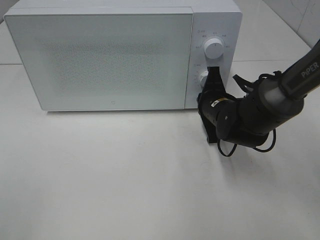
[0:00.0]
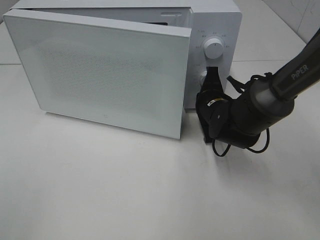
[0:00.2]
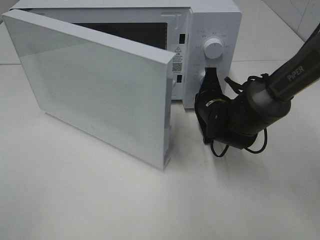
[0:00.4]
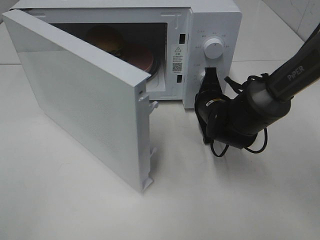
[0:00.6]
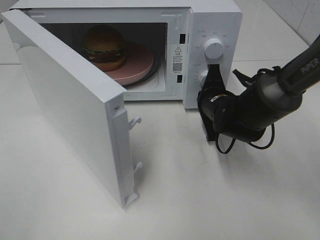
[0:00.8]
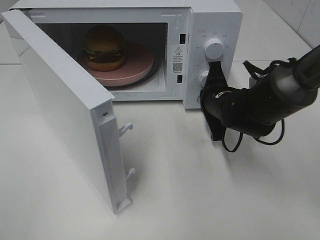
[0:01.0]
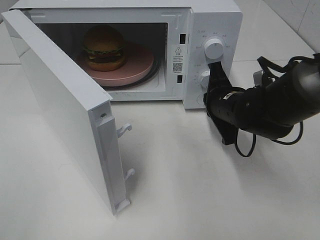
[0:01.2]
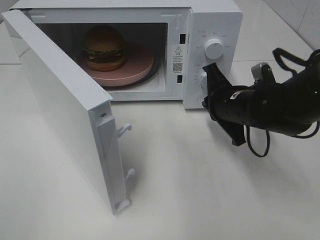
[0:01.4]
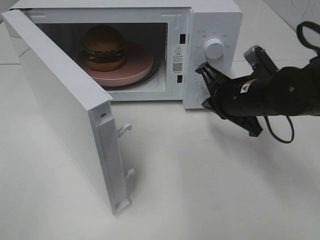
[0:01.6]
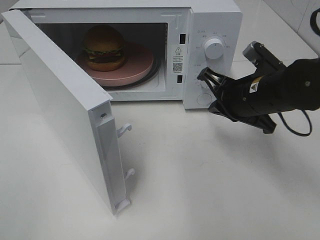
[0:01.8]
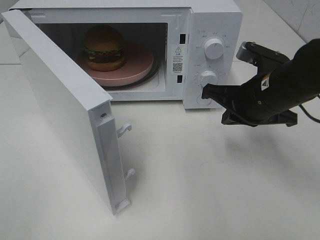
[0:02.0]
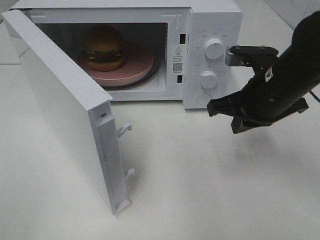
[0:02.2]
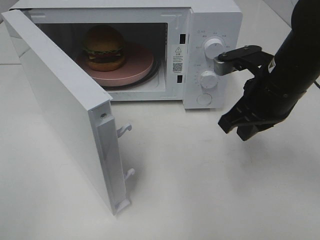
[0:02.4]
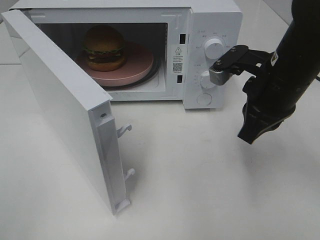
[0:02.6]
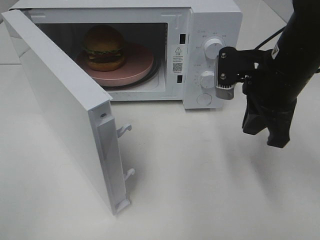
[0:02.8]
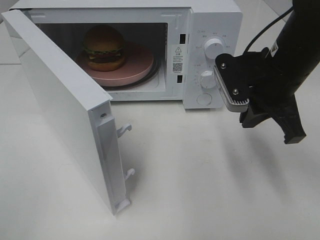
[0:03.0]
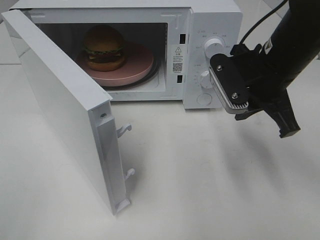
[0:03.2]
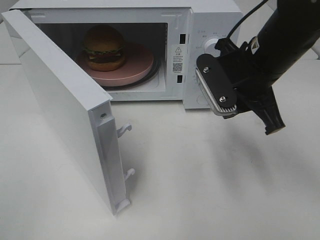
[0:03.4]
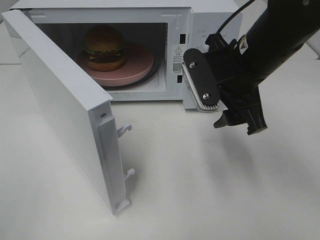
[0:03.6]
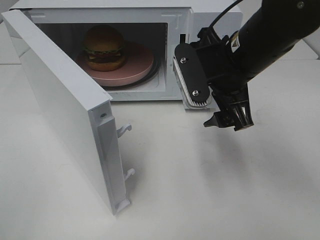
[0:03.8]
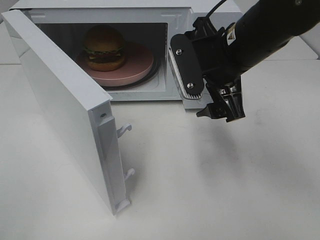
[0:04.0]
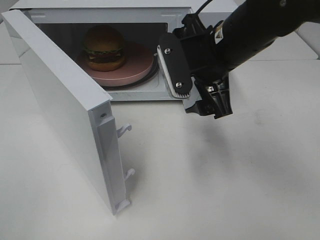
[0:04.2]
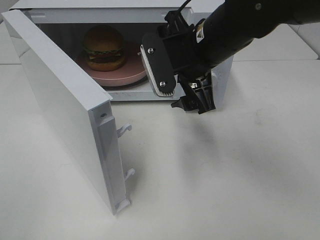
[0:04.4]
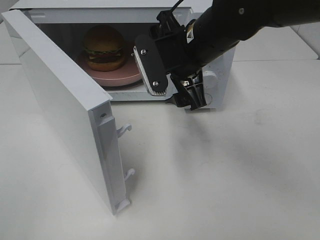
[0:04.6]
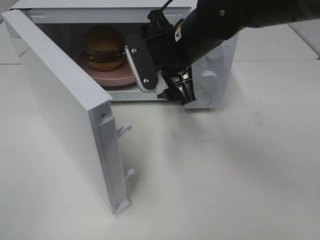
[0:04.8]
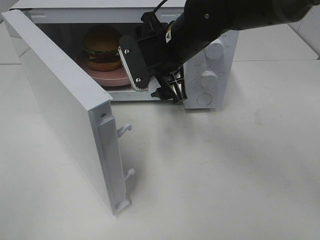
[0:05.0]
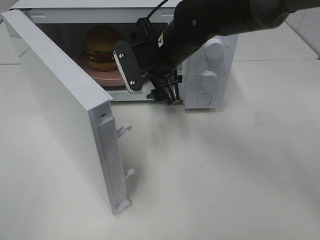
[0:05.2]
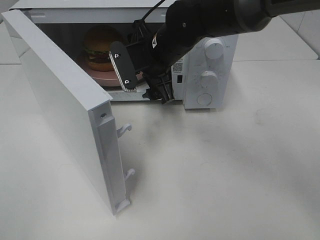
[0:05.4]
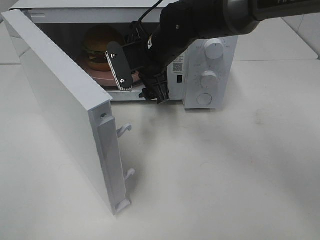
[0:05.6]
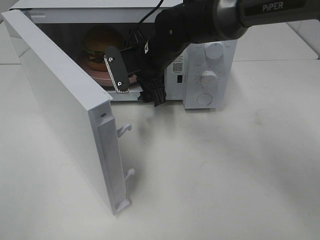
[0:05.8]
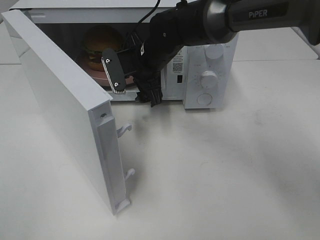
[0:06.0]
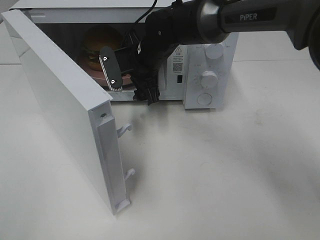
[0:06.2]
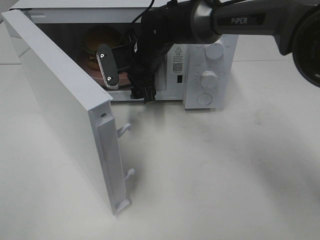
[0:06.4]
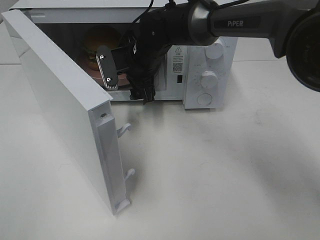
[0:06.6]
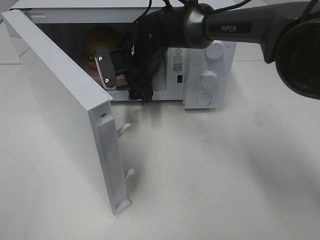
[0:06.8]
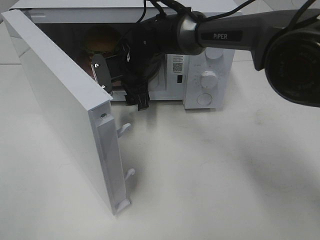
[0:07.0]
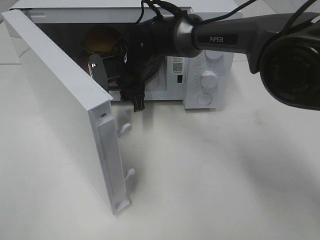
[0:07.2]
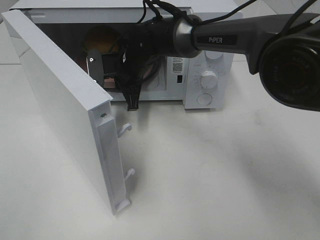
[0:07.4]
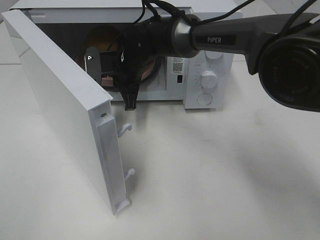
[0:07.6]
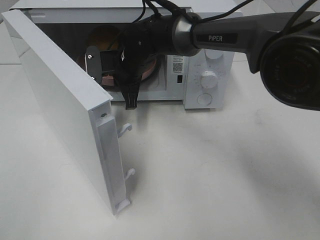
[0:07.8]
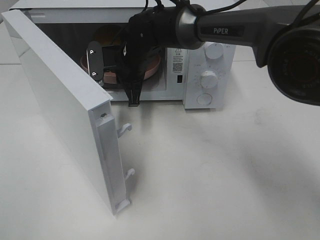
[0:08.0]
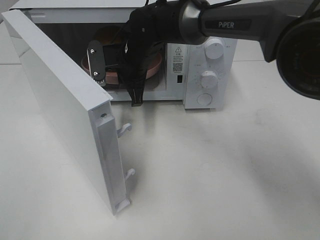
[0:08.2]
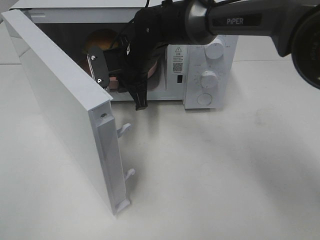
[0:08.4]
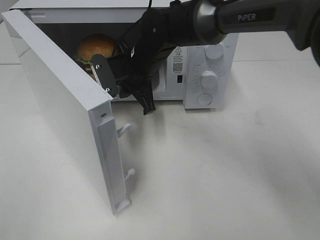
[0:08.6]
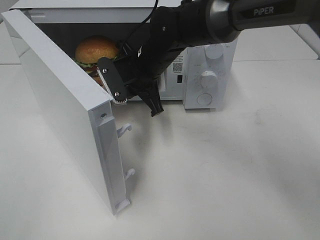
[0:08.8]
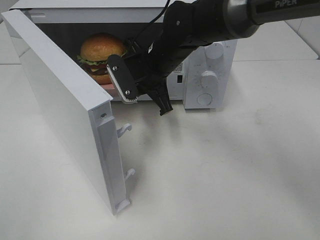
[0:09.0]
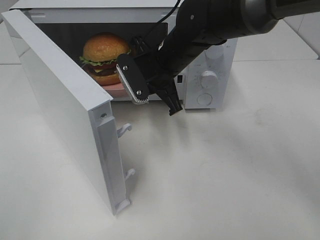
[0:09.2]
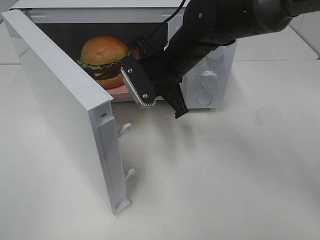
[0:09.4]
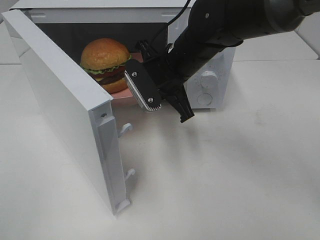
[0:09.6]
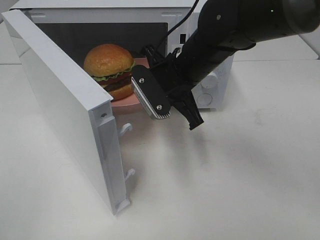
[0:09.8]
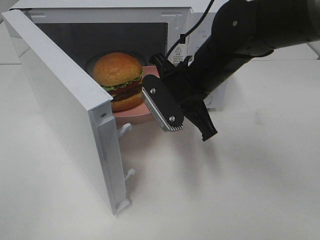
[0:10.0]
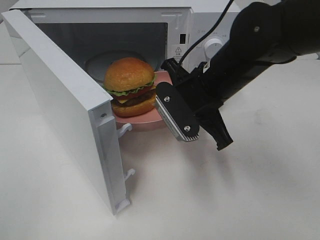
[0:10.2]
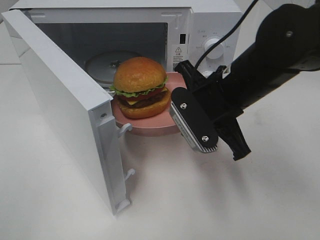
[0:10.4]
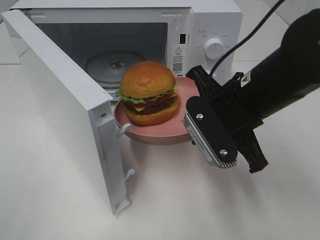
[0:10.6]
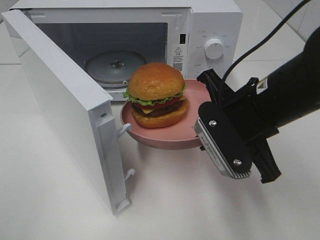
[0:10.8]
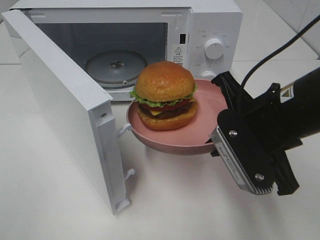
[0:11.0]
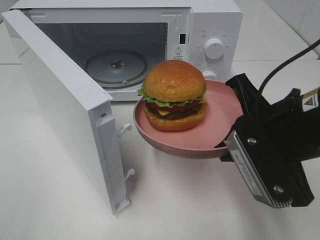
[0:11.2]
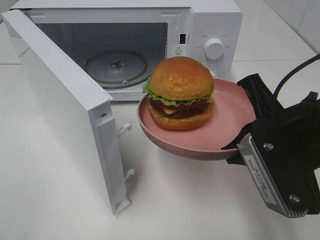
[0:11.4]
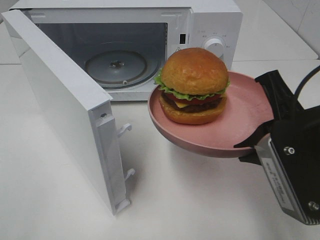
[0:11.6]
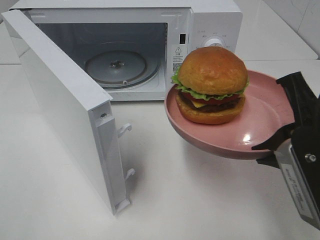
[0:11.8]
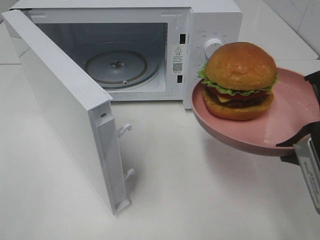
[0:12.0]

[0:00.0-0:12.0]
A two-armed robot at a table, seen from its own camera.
Task of the whole recording: Heat the burger.
Step, 0:01.8 to 0:07.8: Right hand: grab the plate with the hamburger.
0:00.0 to 0:01.6: The right gripper shifts approximately 5 cm upward.
0:01.6 to 0:03.0: The right gripper goes roughly 5 cm upward.
0:03.0 to 0:04.4: The right gripper travels to the left by some 10 cm, and opens up.
0:04.4 to 0:06.0: The right gripper is displaced forward, downward and to the left by some 15 cm.
0:06.0 to 0:07.6: The right gripper shifts by roughly 5 cm, and closes up.
0:07.6 to 0:09.0: The right gripper shifts about 5 cm to the right.
0:09.0 to 0:10.4: The right gripper travels backward and to the right by about 15 cm.
0:10.4 to 0:12.0: The right gripper shifts approximately 15 cm backward and to the right.

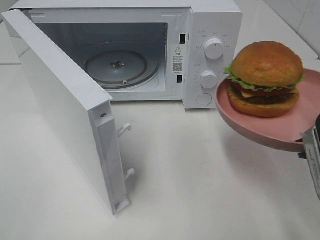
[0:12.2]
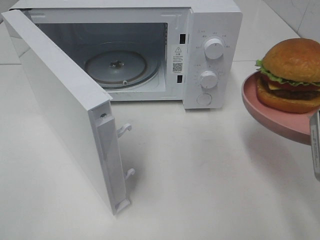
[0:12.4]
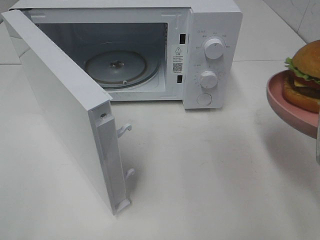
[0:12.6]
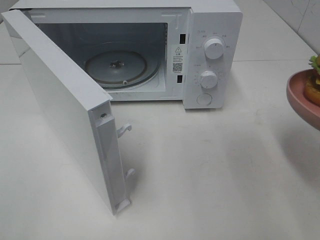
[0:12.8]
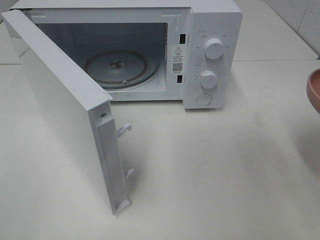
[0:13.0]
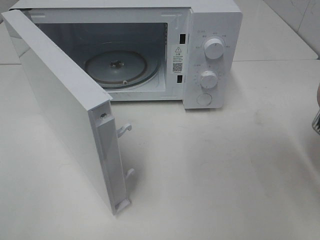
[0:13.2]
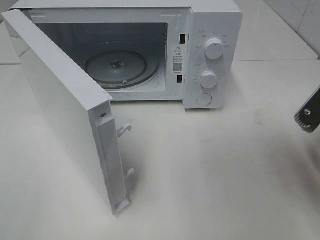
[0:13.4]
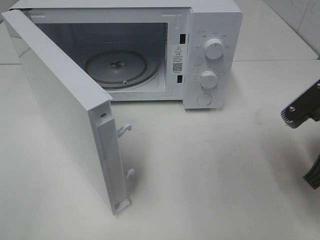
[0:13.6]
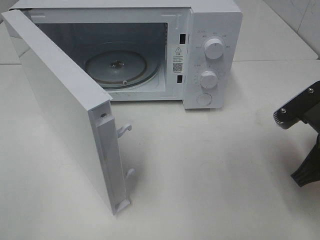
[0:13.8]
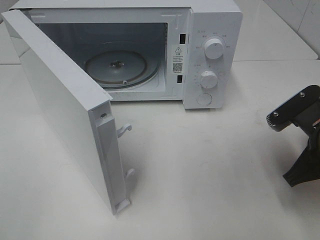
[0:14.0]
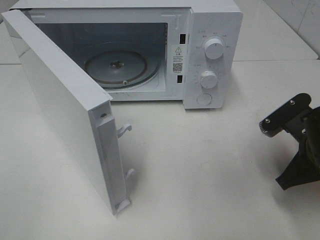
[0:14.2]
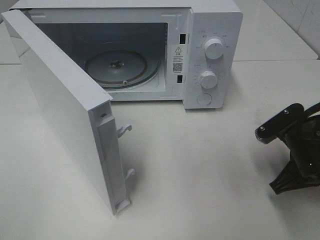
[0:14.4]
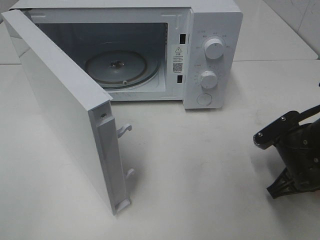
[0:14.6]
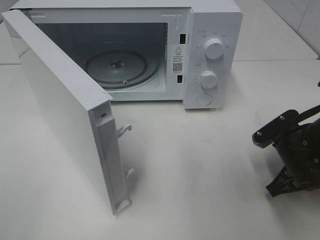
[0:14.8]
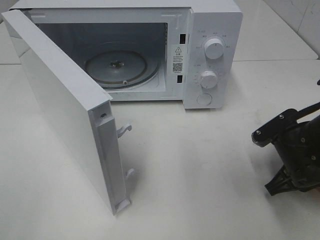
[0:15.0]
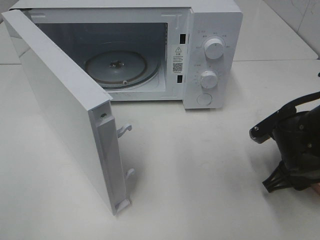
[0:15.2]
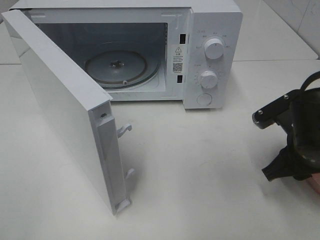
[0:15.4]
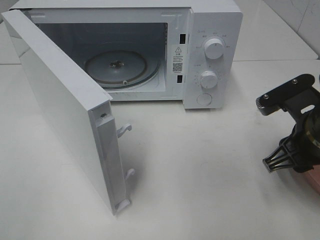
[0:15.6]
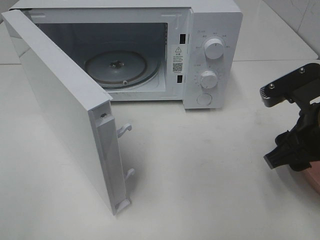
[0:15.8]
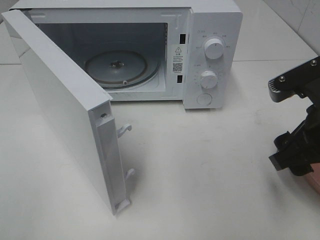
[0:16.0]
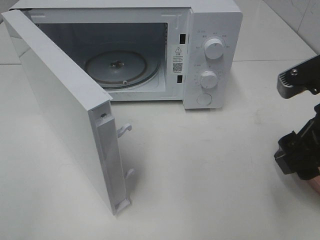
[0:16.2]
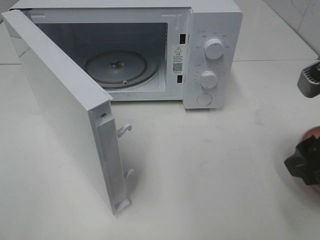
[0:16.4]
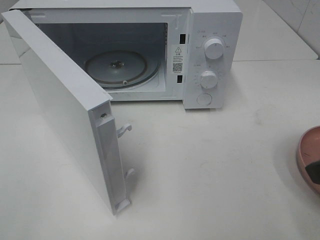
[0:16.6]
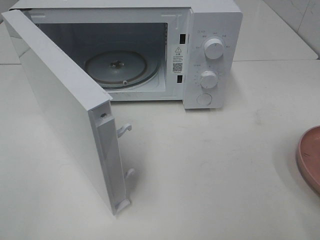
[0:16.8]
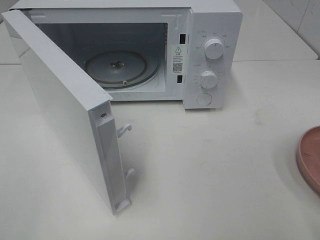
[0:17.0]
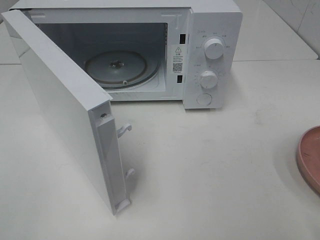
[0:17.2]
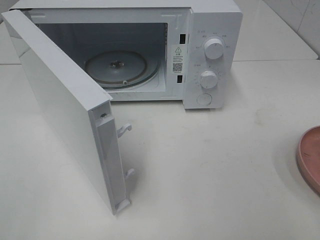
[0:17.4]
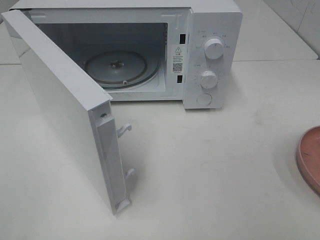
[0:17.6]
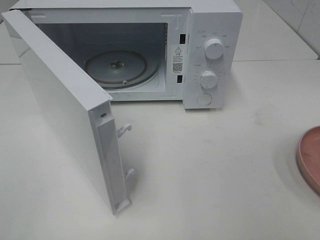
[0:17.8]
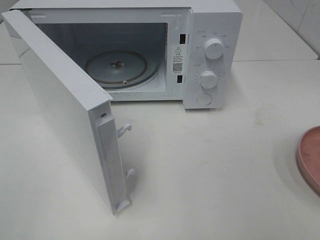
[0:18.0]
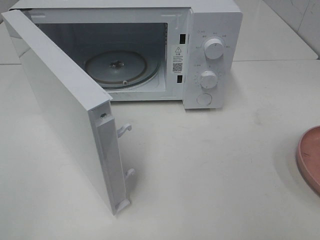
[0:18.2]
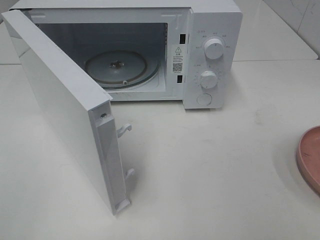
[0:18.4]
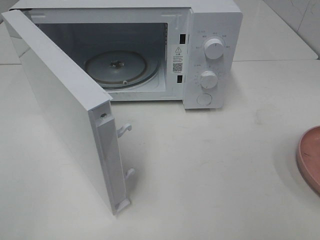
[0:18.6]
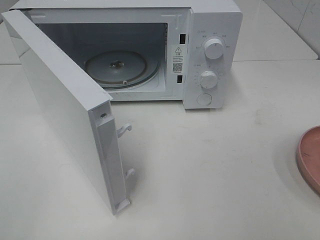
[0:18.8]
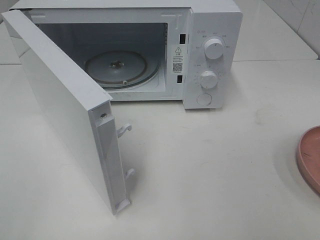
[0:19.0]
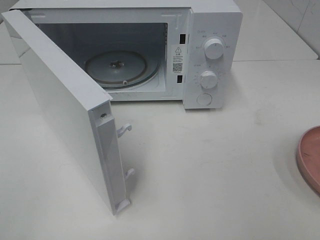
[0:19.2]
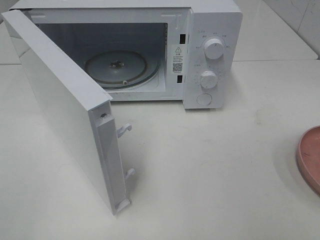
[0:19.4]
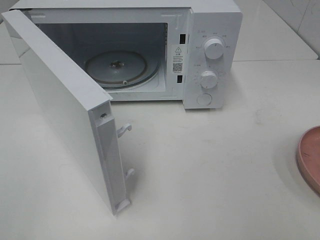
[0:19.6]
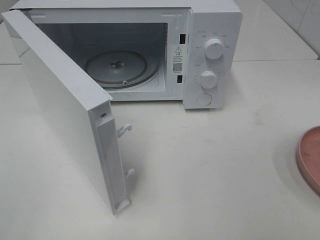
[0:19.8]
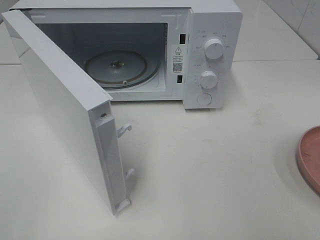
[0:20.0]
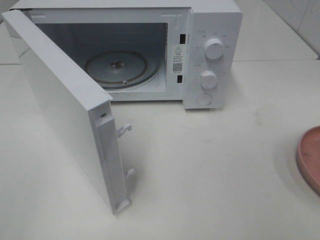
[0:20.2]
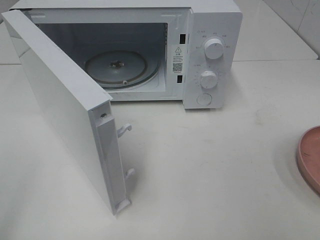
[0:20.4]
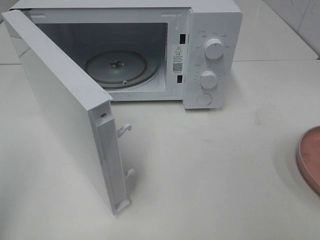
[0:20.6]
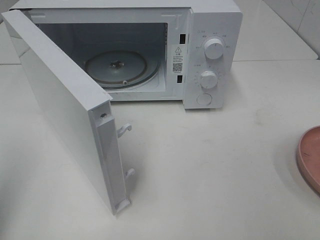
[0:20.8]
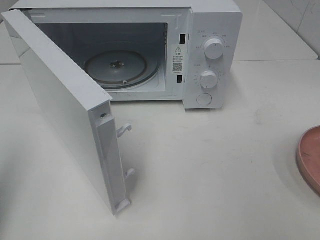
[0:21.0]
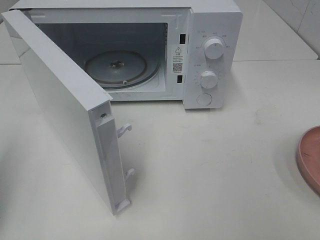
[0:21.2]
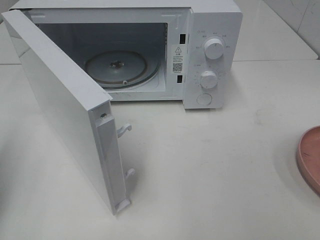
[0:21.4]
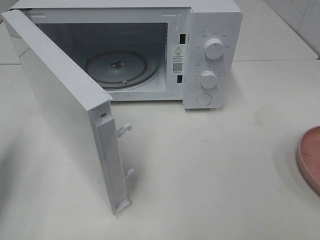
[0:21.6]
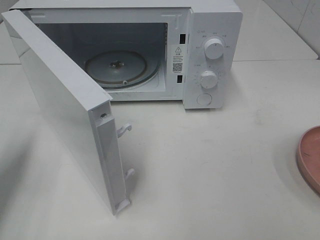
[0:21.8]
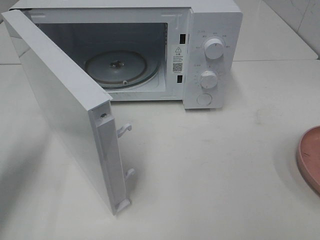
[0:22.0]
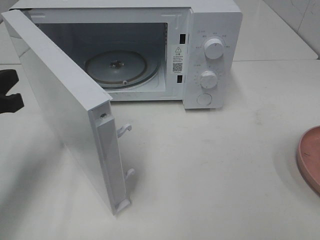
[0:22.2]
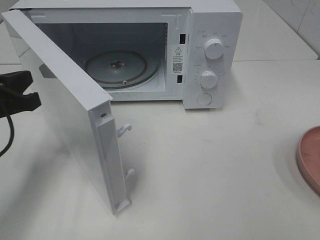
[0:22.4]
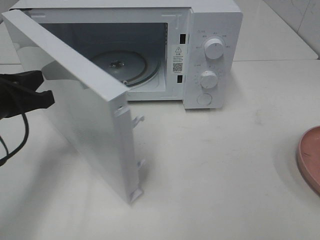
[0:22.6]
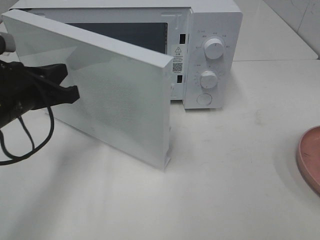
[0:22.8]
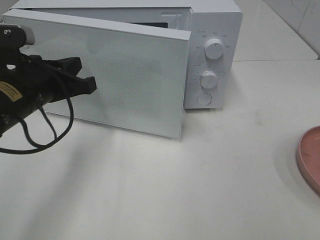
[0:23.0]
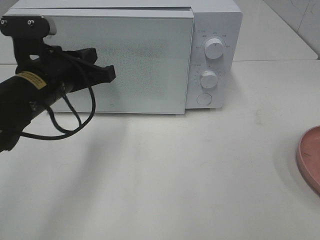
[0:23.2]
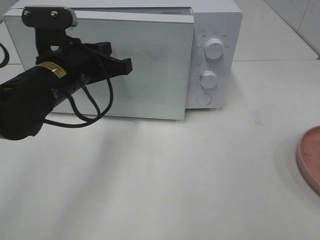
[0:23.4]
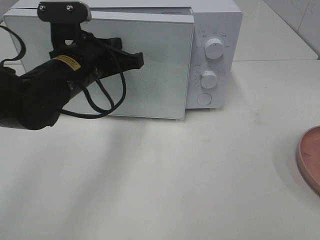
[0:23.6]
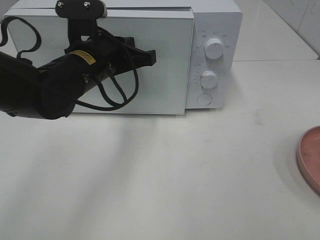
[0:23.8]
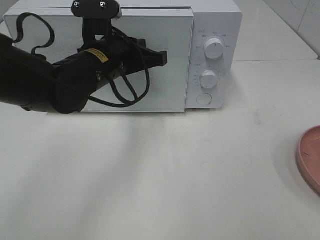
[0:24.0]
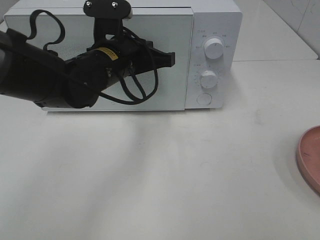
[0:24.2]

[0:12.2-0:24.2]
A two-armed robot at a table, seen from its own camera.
Task of the whole recording: Heat the burger.
Step, 0:12.2 to 0:15.6: Right hand: place the plate on the table.
0:12.2 to 0:13.8: The right gripper travels downward and forward by approximately 10 cm.
0:13.8 to 0:15.2: The right gripper travels downward by roughly 5 cm, and opens up.
0:15.2 to 0:16.6: The right gripper heads upward and backward, covering approximately 20 cm.
0:16.6 to 0:18.2: The right gripper is displaced backward and to the right by some 15 cm.
0:18.2 to 0:19.8: Both grippers stay about where they are.
0:19.8 to 0:21.2: The left gripper goes some 15 cm forward, and closes its fingers.
0:21.2 to 0:22.6: The left gripper goes approximately 15 cm to the right, forward and downward.
0:22.6 to 0:24.2: The left gripper moves to the right and forward, about 20 cm.
